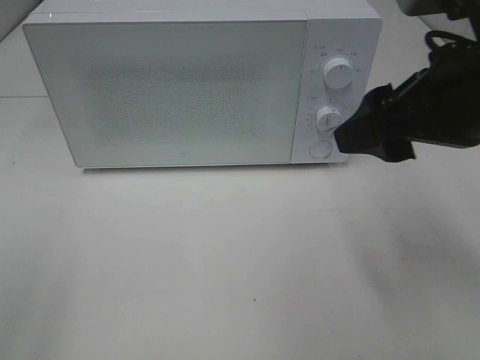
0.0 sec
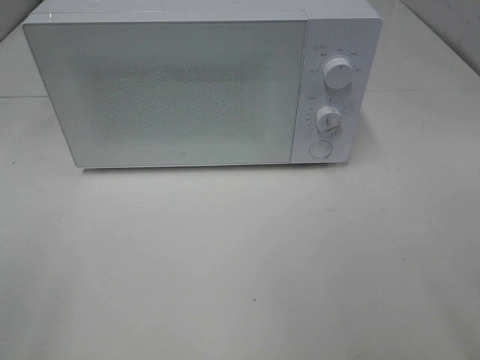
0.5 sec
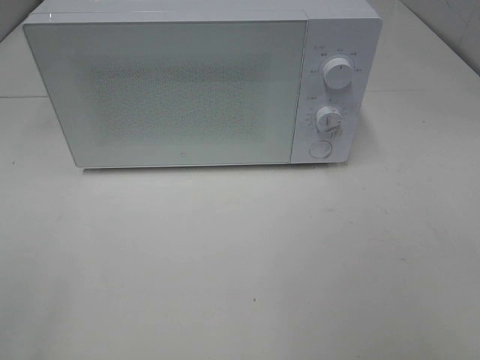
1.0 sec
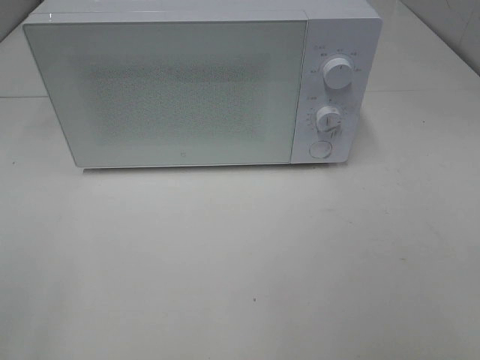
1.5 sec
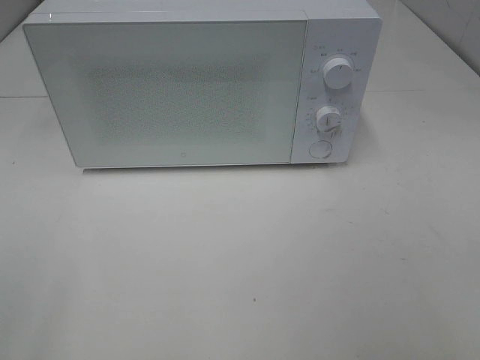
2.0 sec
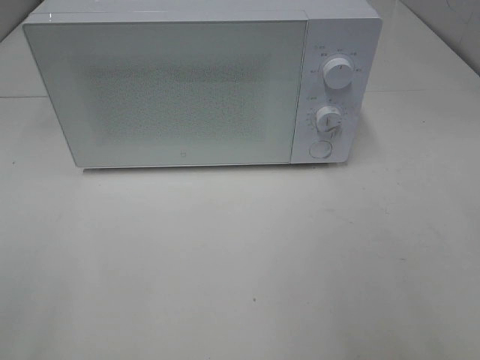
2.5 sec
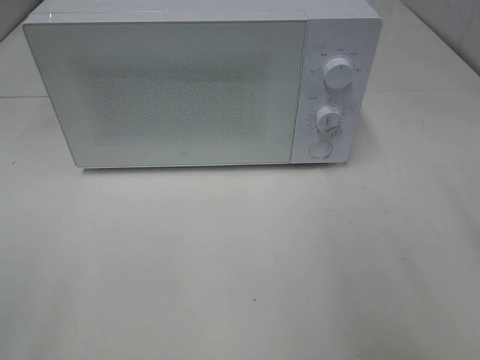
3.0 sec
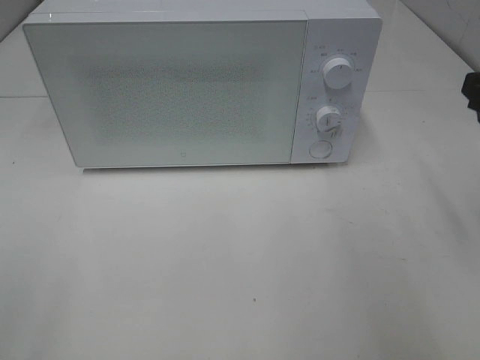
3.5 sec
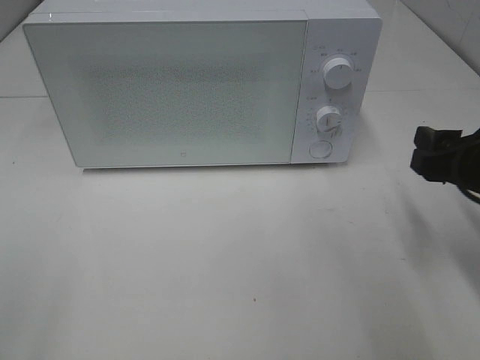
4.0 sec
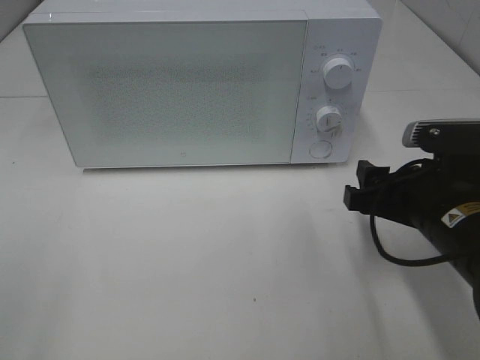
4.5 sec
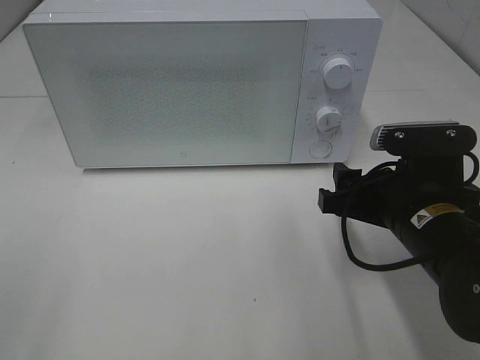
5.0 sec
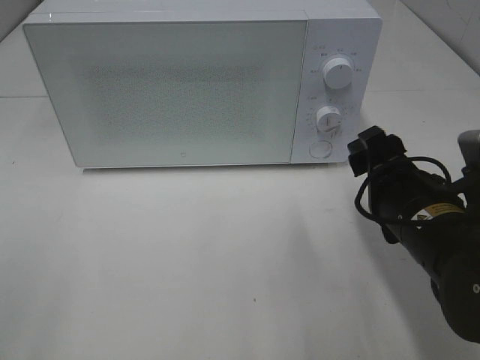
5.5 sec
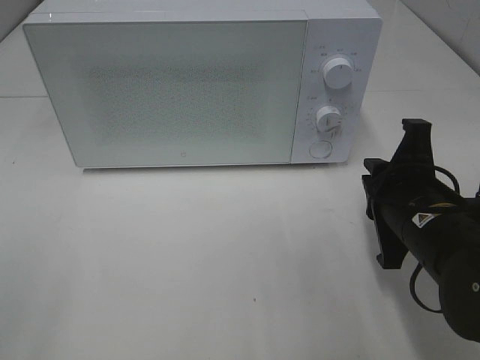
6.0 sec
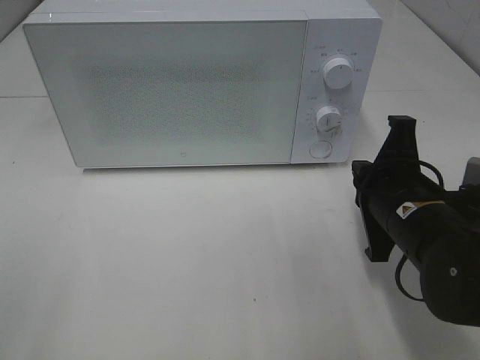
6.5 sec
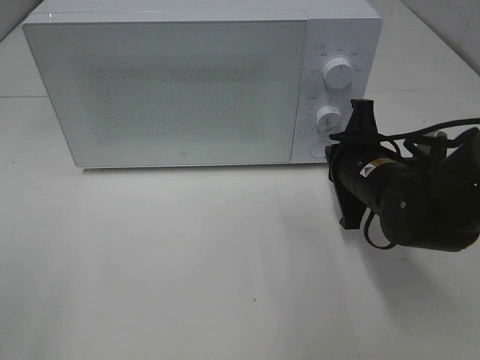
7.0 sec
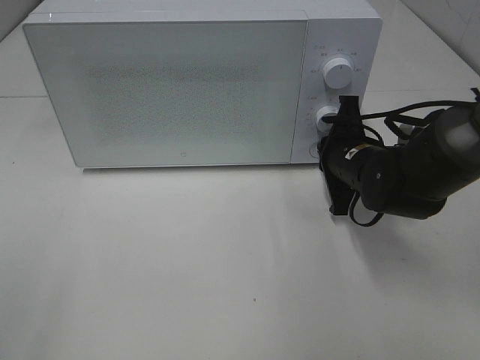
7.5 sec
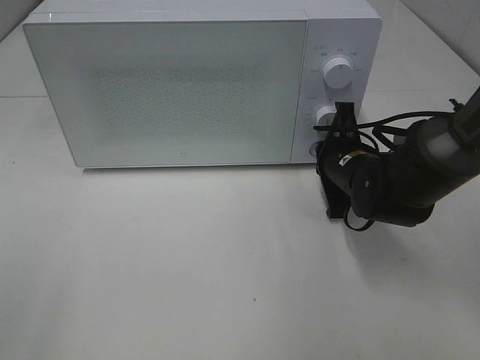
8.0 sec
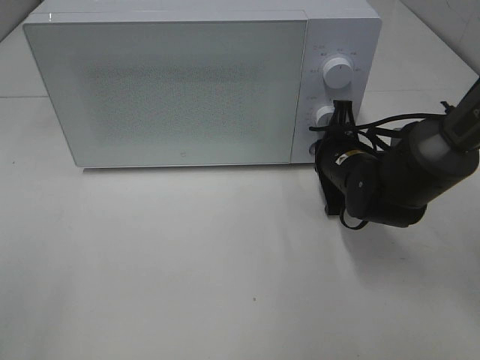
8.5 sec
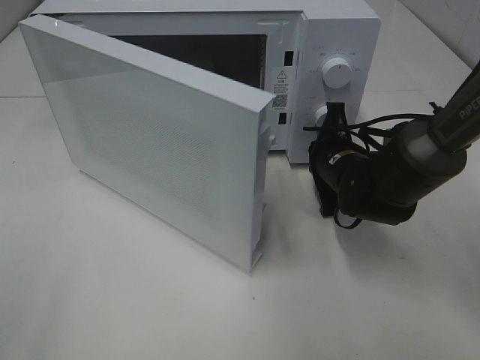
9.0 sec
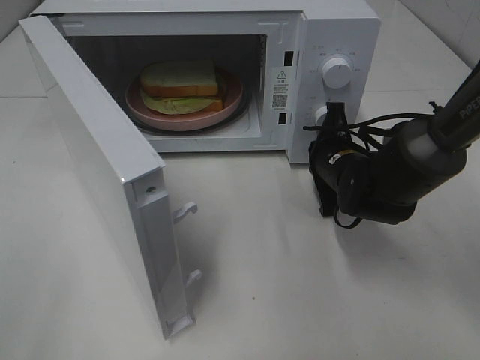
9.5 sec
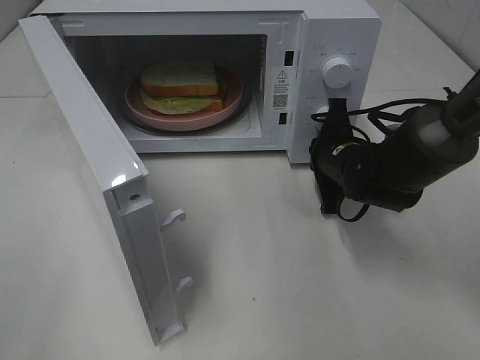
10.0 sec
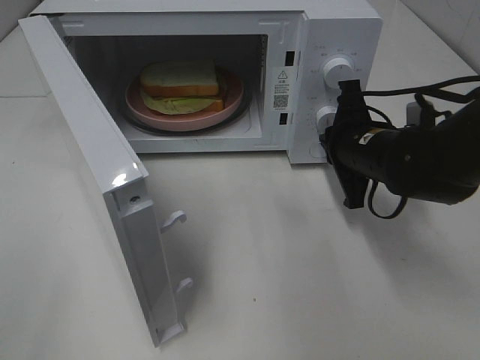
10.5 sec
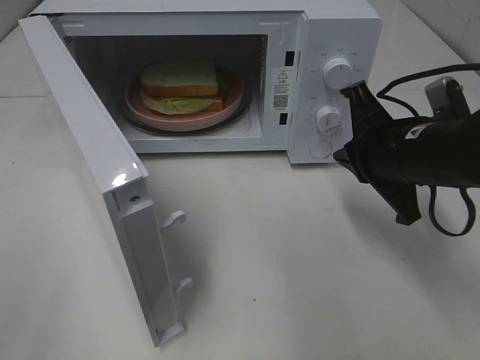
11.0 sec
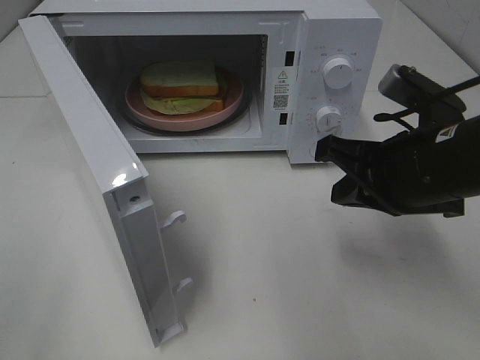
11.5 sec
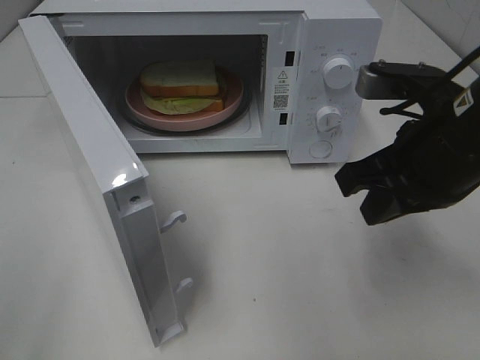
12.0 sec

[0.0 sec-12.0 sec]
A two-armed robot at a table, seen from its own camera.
Task of the whole recording: Heat Sandwich.
Step, 0.0 sec to 10.5 sec: Right hand: press the switch.
0.0 sec to 2.0 sec: The right gripper heads backward and to the right, covering some 20 cm.
2.0 sec to 4.0 sec: The right gripper is displaced forward and downward by about 25 cm.
4.0 sec to 6.0 sec: The right gripper shifts approximately 10 cm to the left, and closes its fingers.
6.0 sec to 8.0 sec: The right gripper travels forward by about 15 cm.
10.0 sec to 12.0 sec: The right gripper goes about 20 cm upward and backward.

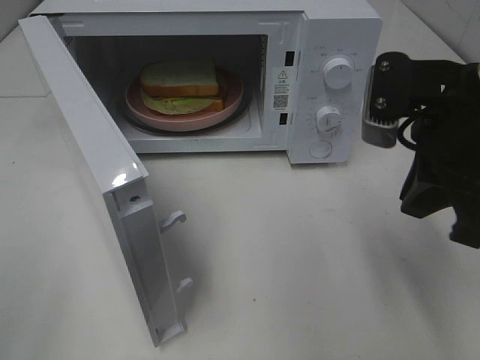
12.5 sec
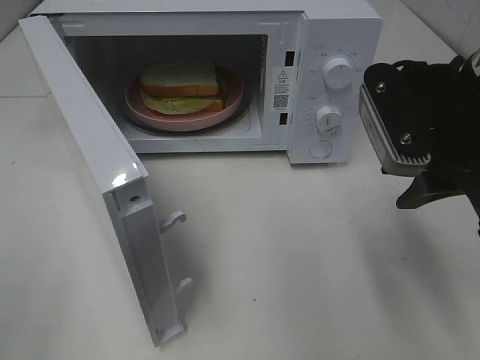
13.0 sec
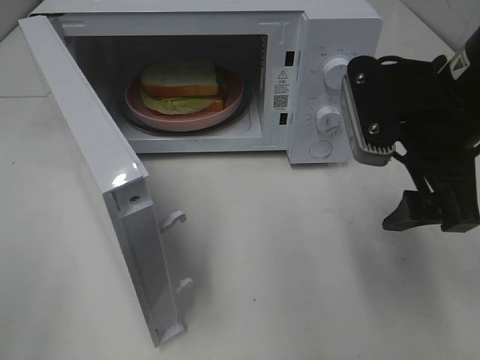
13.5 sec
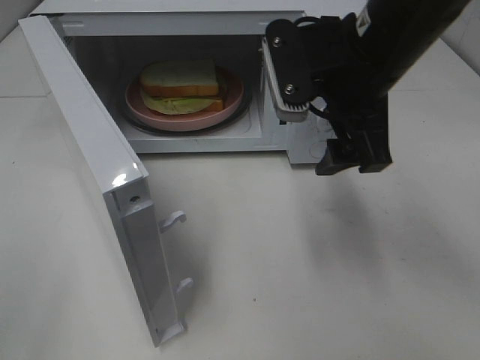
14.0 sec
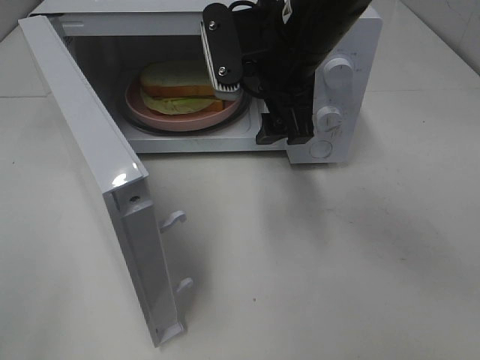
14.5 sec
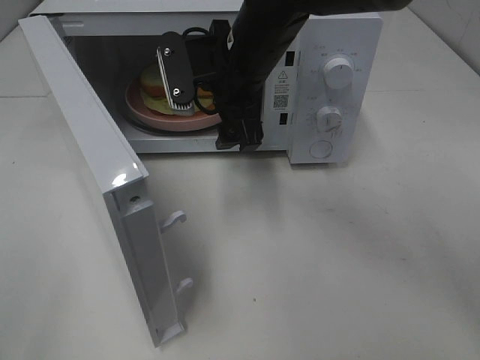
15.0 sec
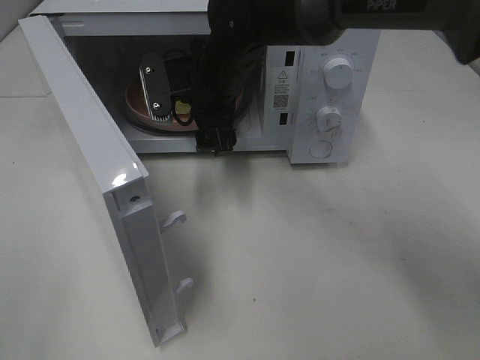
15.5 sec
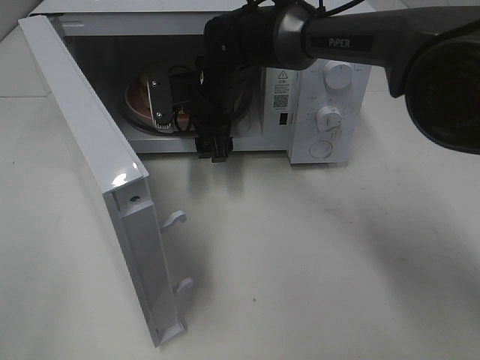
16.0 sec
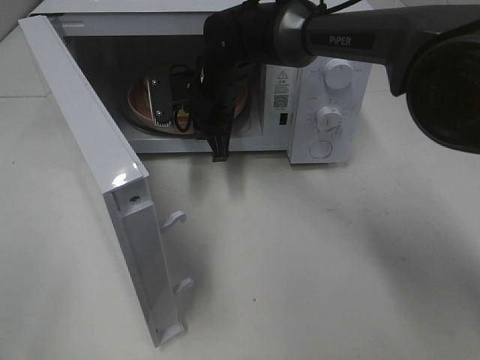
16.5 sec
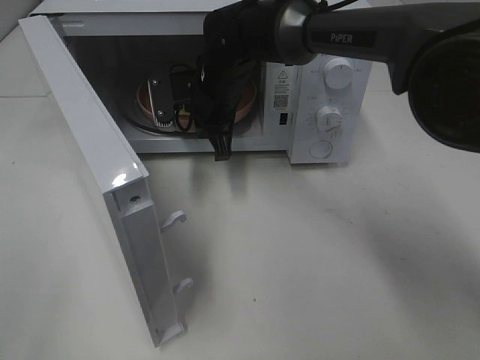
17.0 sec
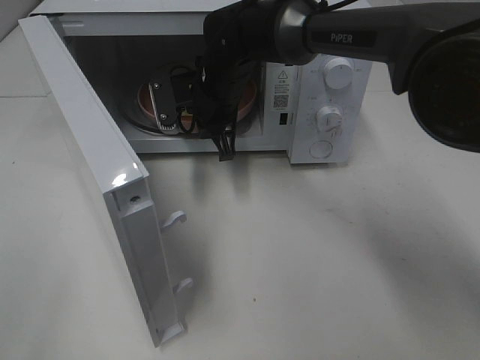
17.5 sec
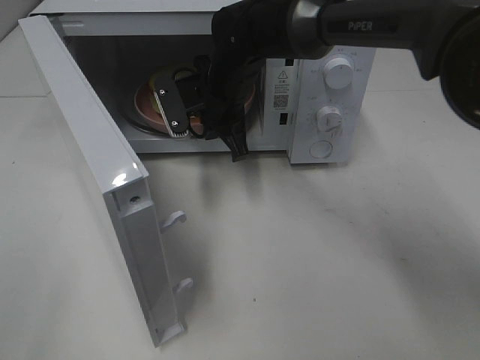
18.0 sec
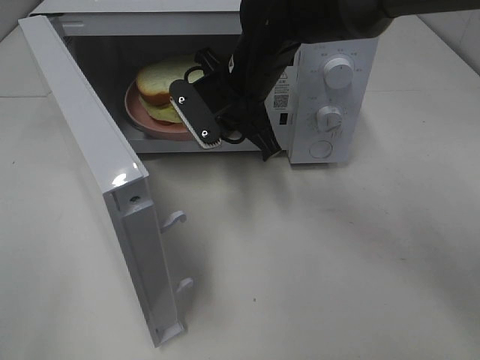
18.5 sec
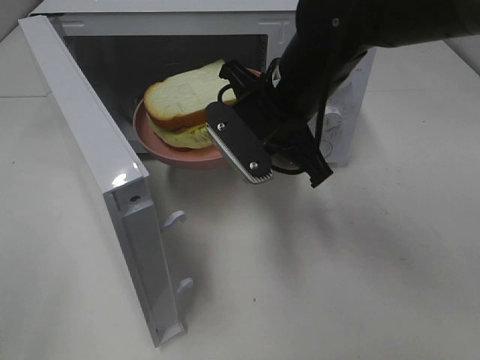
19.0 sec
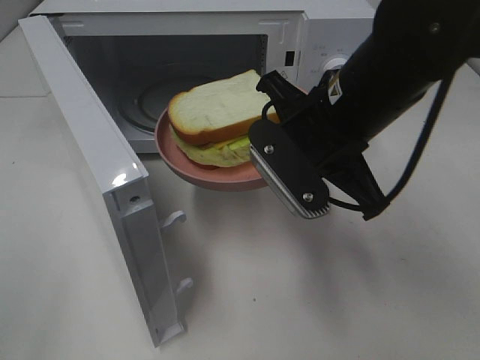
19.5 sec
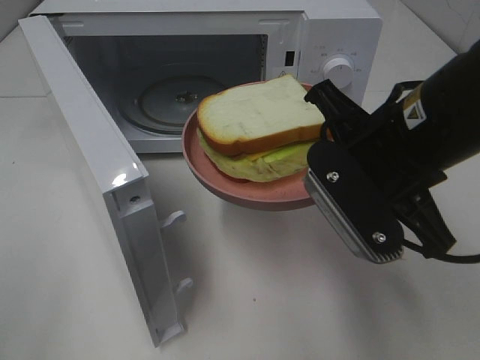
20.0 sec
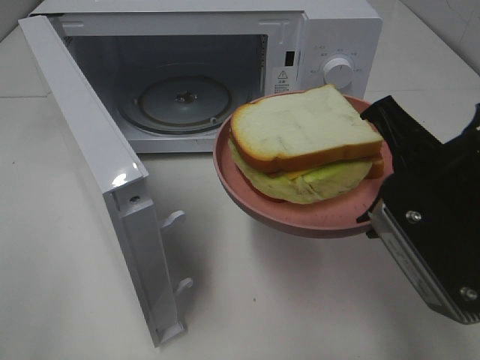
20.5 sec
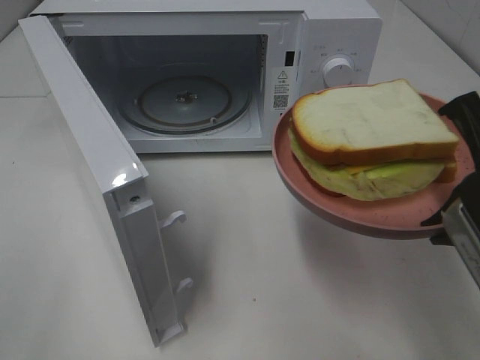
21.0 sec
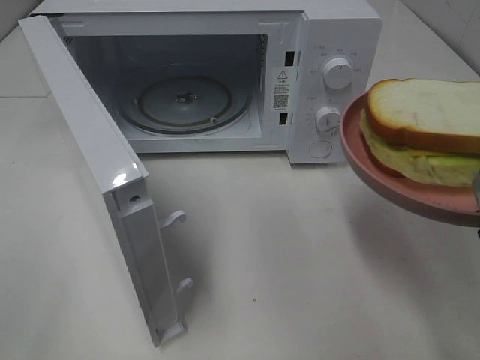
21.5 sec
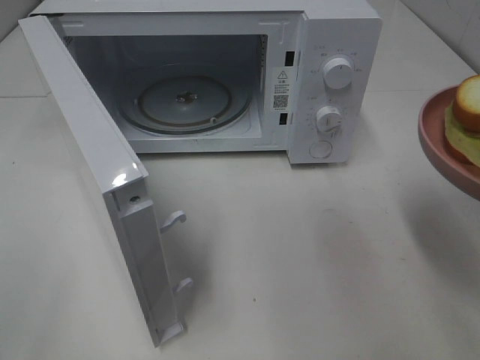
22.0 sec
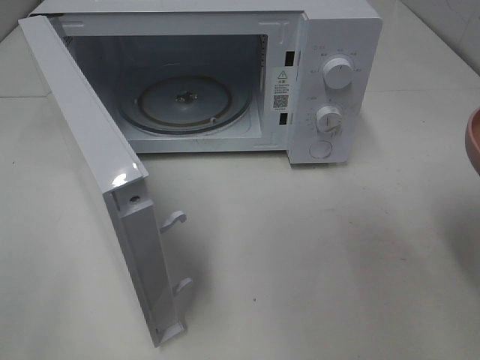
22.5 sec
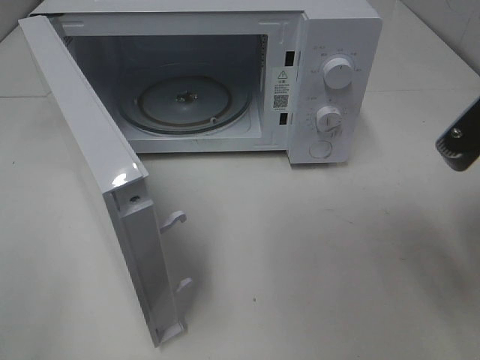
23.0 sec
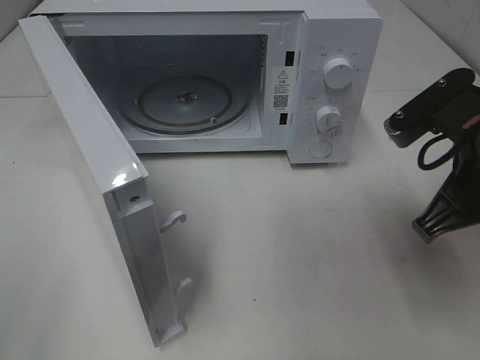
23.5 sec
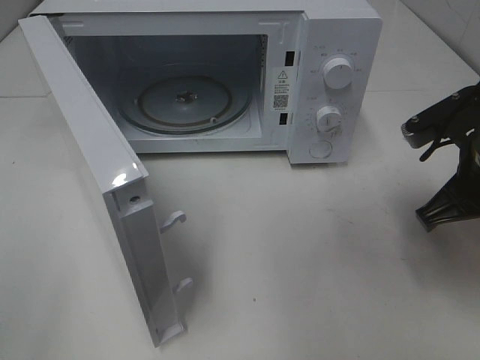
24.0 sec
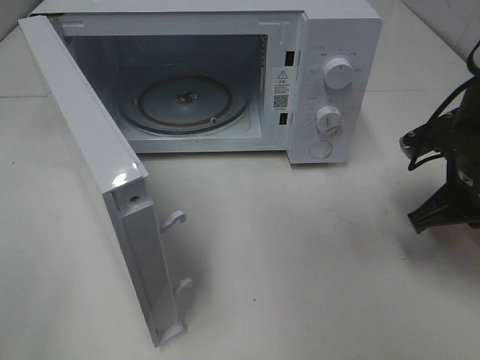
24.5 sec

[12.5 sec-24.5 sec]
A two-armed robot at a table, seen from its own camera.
Task of the whole recording: Heat Sandwich.
Step, 12.5 sec to 16.5 sec: Right hand: grab the plate with the sandwich.
12.5 sec to 14.5 sec: The right gripper moves to the left and forward, about 15 cm, and opens.
14.5 sec to 16.5 sec: The right gripper heads downward, forward and to the left, covering about 15 cm, and closes up.
16.5 sec to 18.5 sec: The right gripper travels backward by approximately 5 cm.
18.5 sec to 20.5 sec: The right gripper moves backward and to the right, roughly 25 cm.
20.5 sec to 22.5 sec: The right gripper is displaced to the right by about 5 cm.
22.5 sec to 24.5 sec: The right gripper travels forward and downward by approximately 20 cm.

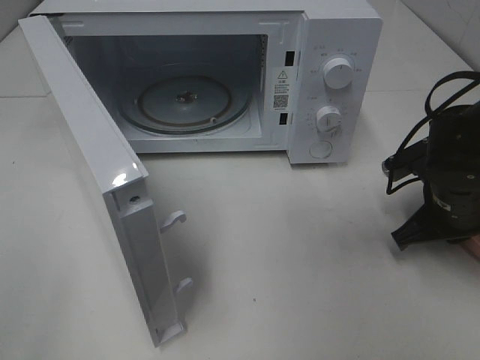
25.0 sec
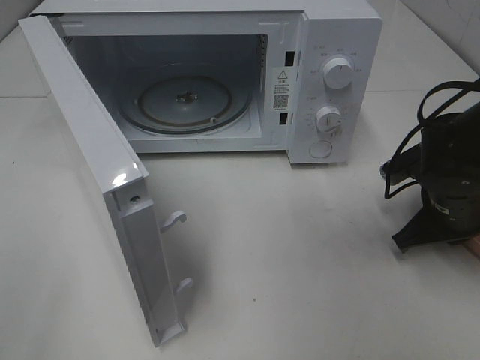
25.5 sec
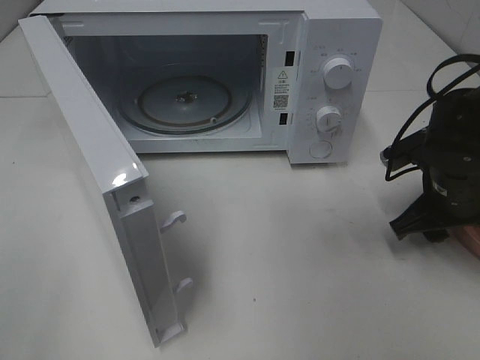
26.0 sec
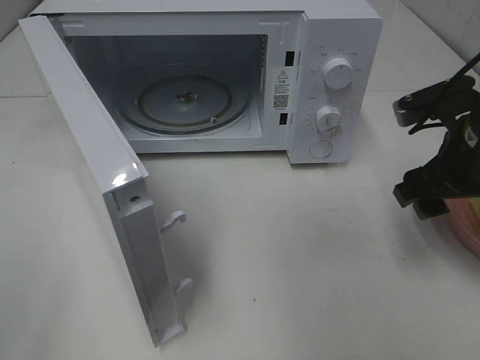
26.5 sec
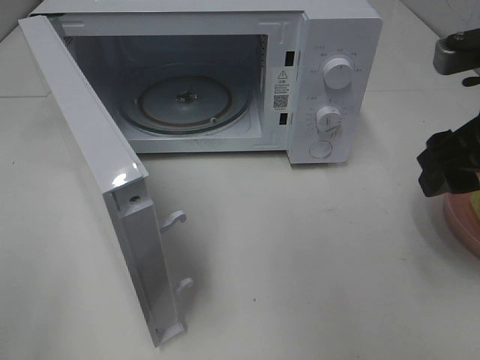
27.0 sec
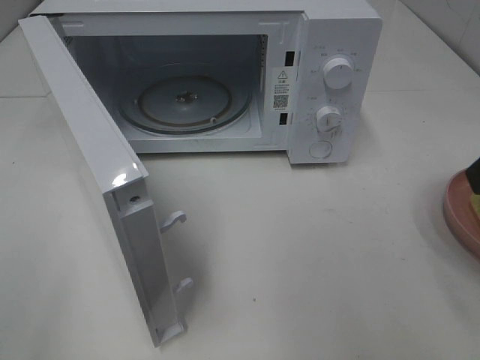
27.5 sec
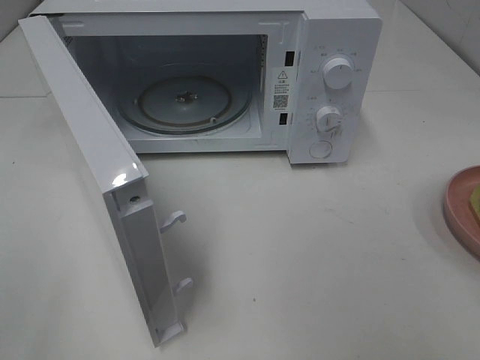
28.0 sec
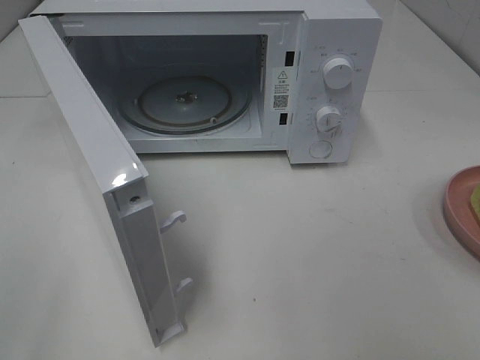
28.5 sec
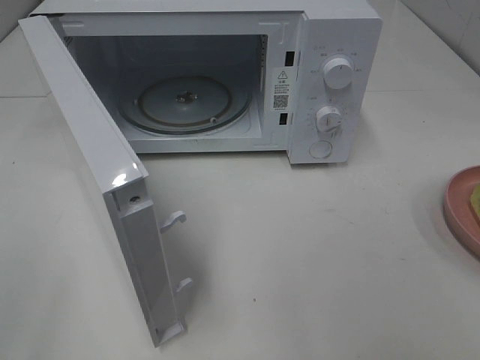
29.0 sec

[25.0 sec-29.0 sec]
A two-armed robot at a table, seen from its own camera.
Task of the whole recording: Heat Sandwich.
25.0 sec to 27.0 sec: The right gripper shifts roughly 15 cm upward, and opens up.
27.0 sec to 29.0 sec: The right gripper shifts roughly 20 cm backward.
